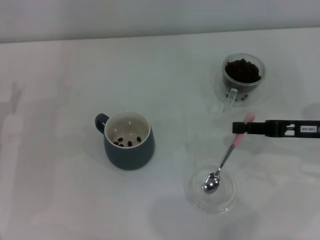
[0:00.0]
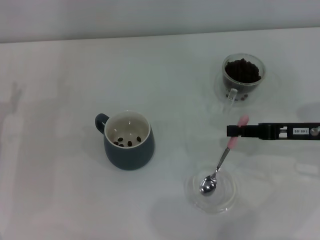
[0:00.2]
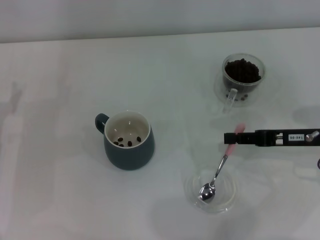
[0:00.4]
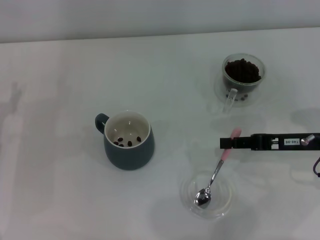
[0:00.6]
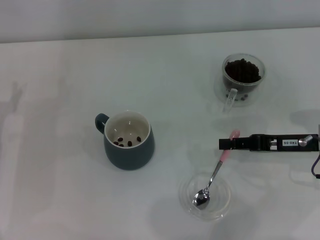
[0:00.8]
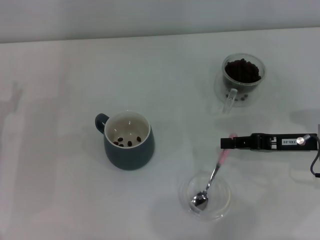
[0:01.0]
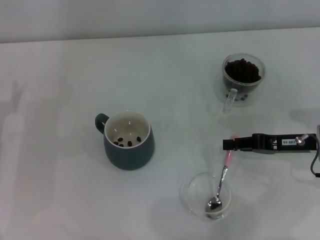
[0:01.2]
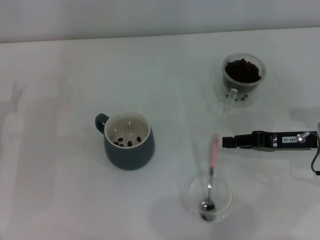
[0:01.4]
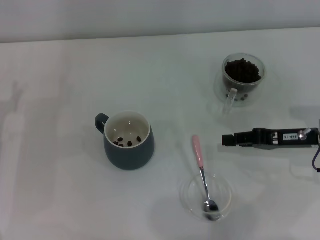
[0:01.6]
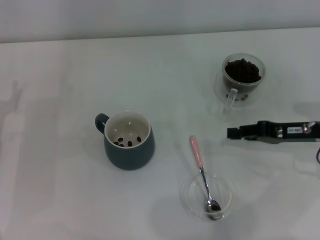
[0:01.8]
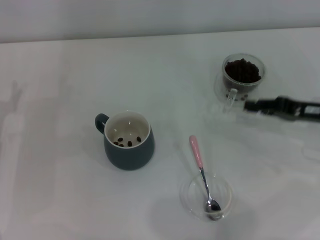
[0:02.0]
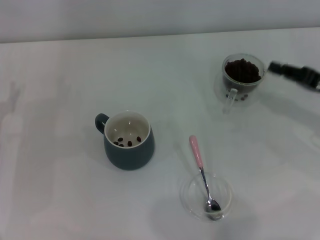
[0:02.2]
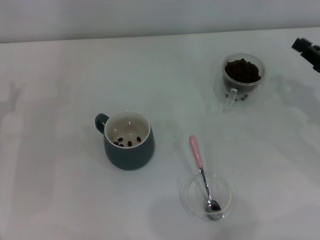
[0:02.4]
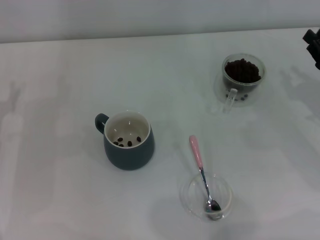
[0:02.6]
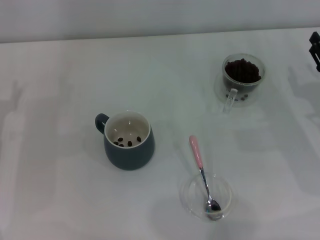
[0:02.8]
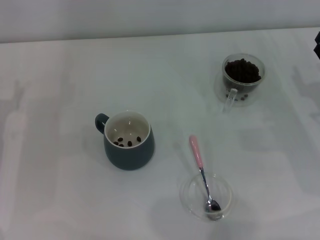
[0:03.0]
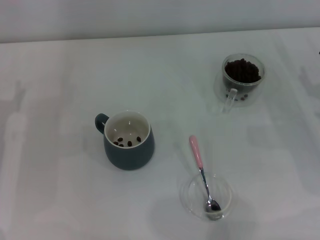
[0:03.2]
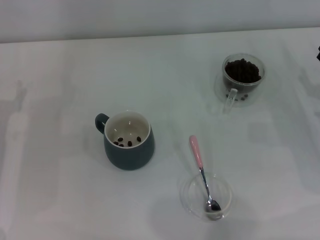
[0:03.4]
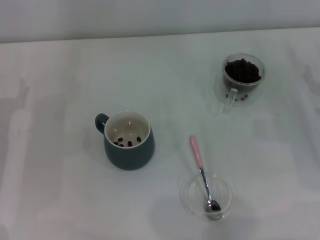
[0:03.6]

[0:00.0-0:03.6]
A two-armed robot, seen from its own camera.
Task of the whole recording: Use a pink spoon to take out the coffee beans from the glass and pour them into the gray cup.
0:00.0 to 0:01.8: The grippers move only a little.
0:01.8 to 0:03.6: The right gripper moves roughly 5 cm, and opens its fingers.
